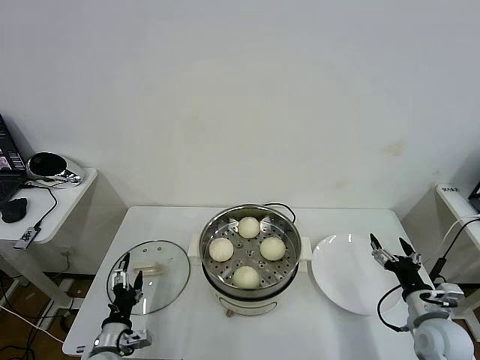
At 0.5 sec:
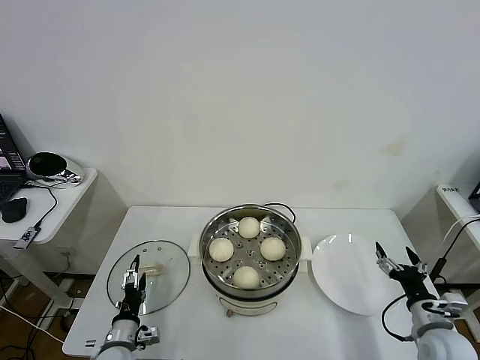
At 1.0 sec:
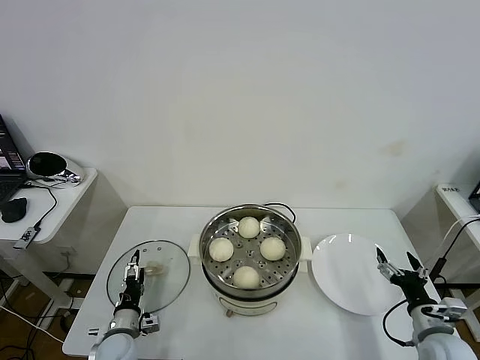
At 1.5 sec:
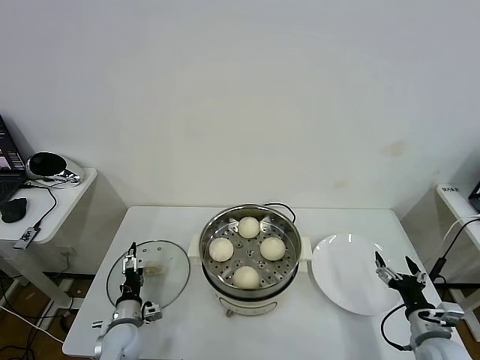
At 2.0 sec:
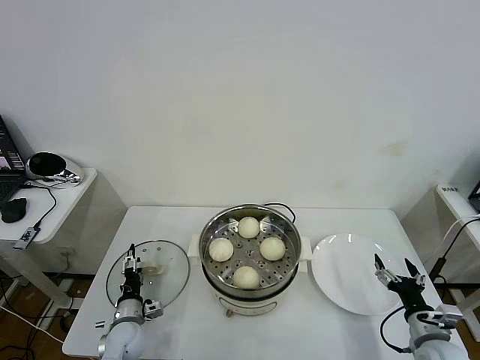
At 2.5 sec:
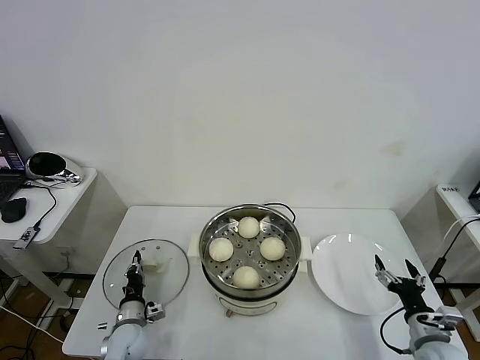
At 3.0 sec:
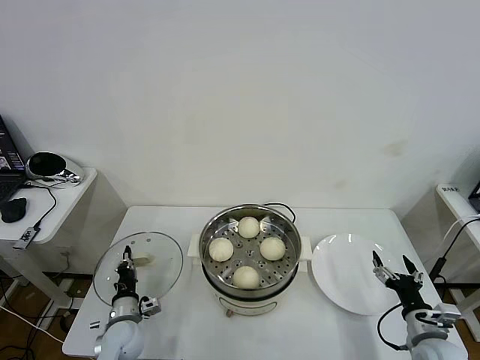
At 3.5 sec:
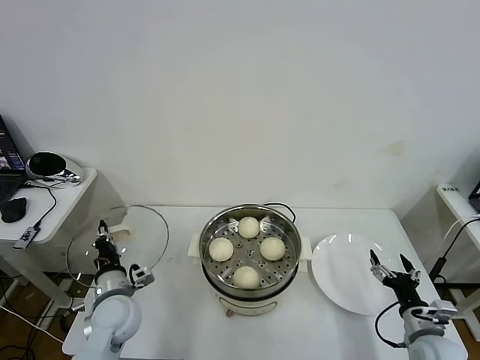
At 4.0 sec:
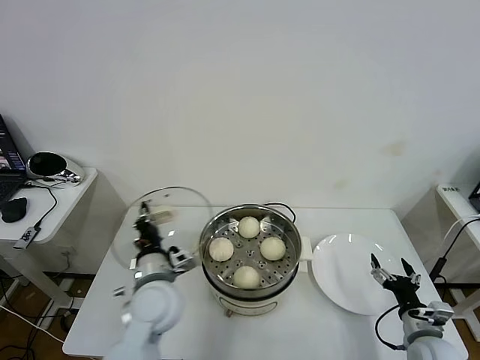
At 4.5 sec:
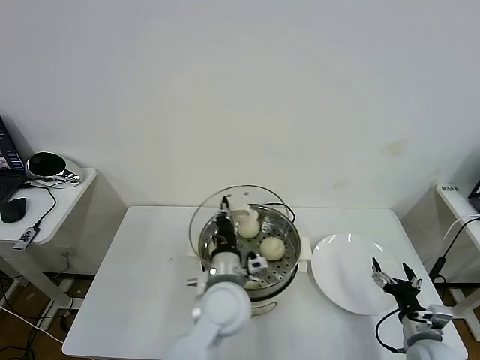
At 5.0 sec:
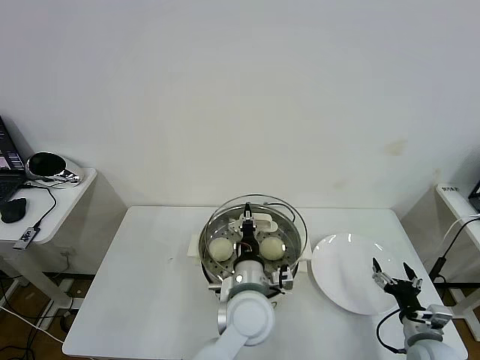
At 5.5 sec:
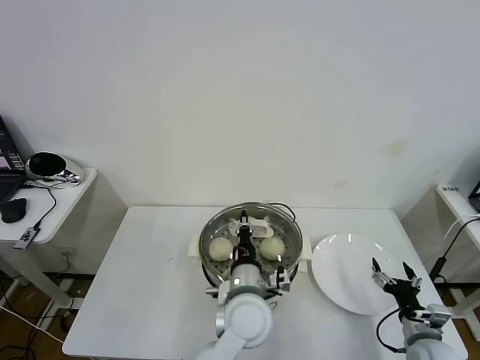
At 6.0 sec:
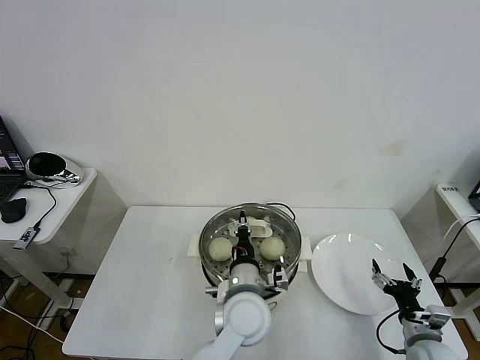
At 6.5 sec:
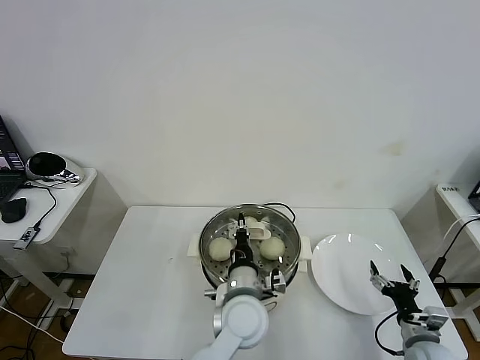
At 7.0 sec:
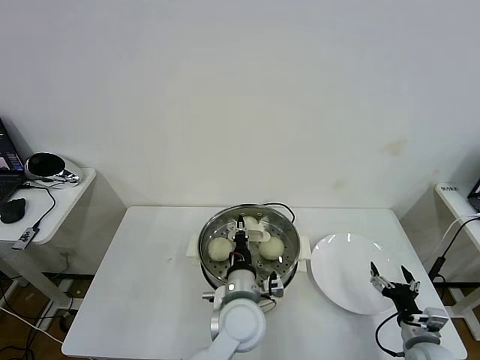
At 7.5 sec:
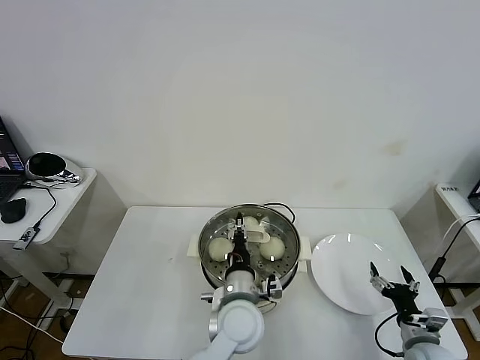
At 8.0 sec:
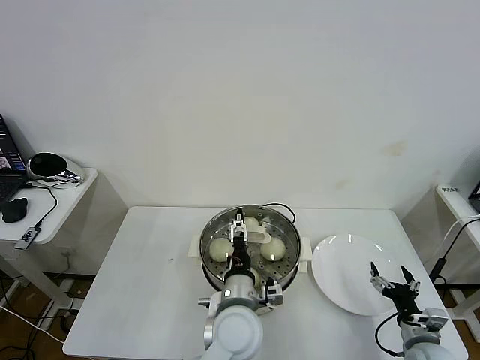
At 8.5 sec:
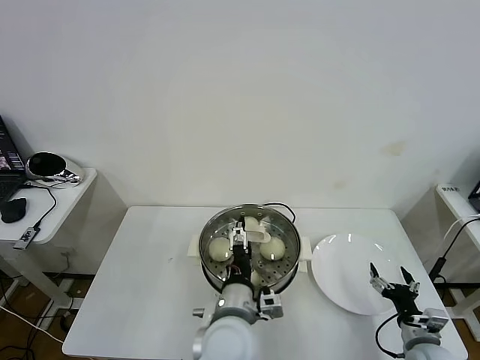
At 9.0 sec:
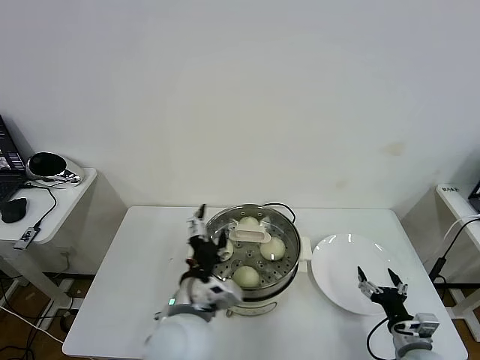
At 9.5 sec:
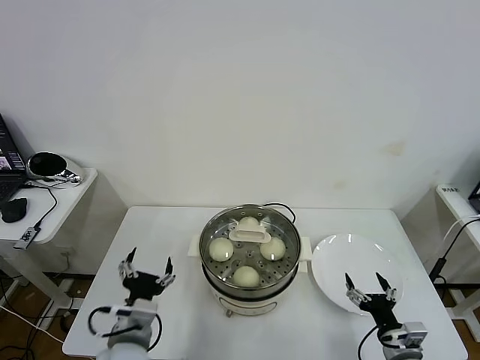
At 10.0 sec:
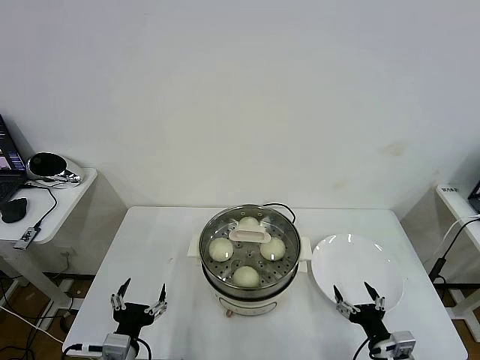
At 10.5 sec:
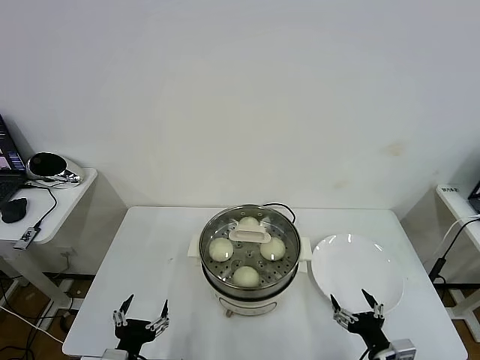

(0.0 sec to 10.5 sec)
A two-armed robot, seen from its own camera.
Task of the whole recording: take steamed baozi put them in steamer then cover it.
Step, 0.0 sec - 2.5 sec: Grasp the pot lid with left gripper.
Step, 3.0 sec - 8.0 sec: Place the pot lid on the steamer with left gripper.
0.0 sec - 2.0 sec: The left gripper shifts about 10 cm forward and downward.
2.0 sec - 4.0 sec: The left gripper goes about 25 cm upward and to the right, and closes up.
4.0 sec - 6.5 sec: The left gripper travels to the right by some 20 cm.
6.5 sec - 8.5 sec: The left gripper shifts approximately 5 cm backward, and opens up.
8.5 sec - 10.5 sec: The left gripper shifts some 25 cm to the left and backward, while the right gripper is displaced to the left and backward by approximately 10 cm.

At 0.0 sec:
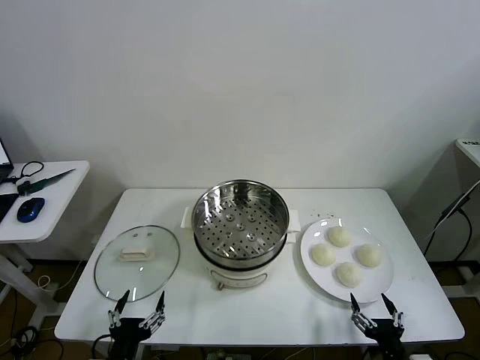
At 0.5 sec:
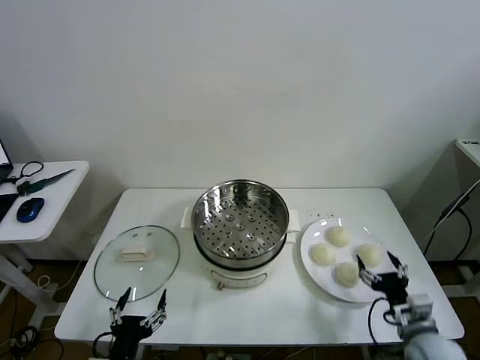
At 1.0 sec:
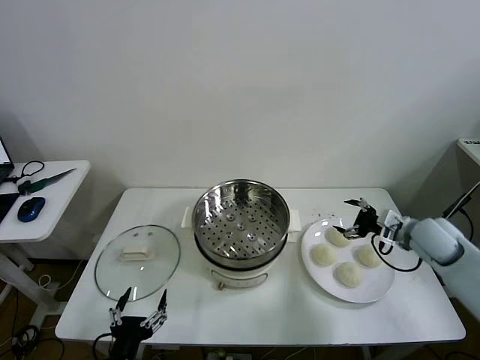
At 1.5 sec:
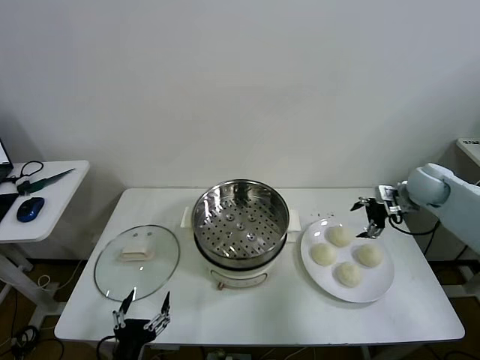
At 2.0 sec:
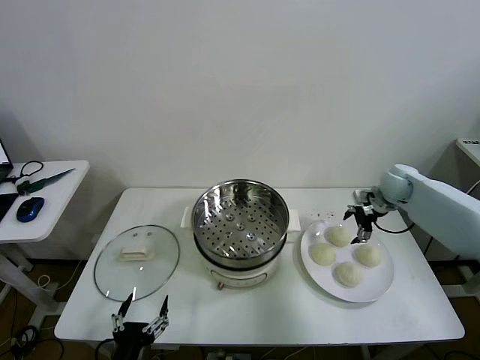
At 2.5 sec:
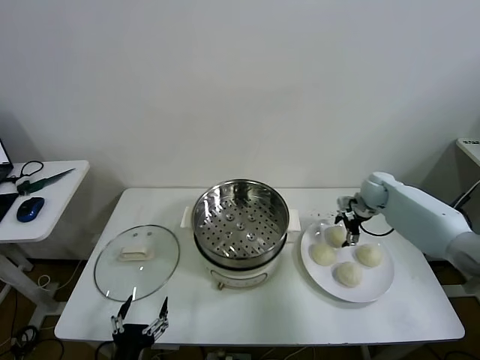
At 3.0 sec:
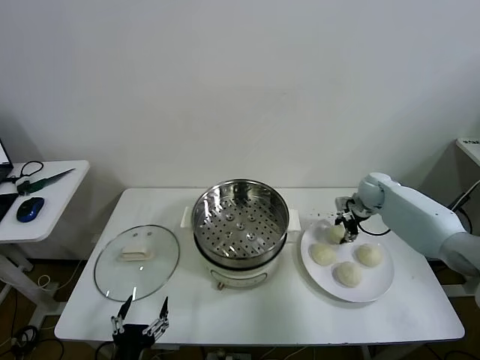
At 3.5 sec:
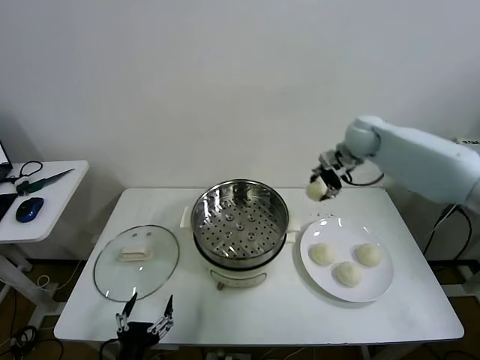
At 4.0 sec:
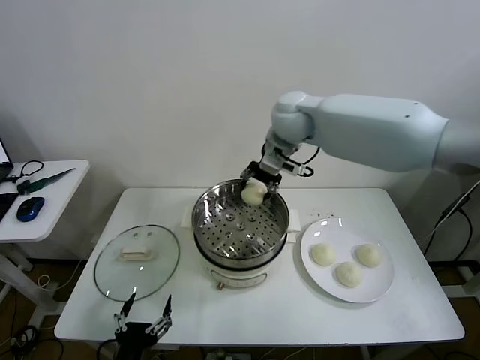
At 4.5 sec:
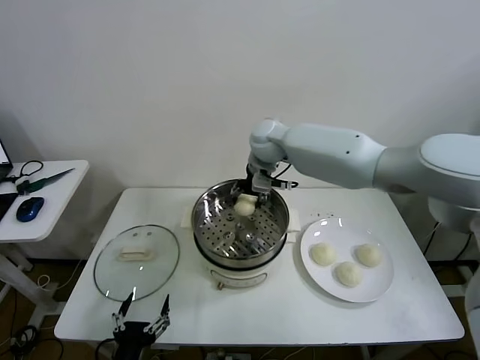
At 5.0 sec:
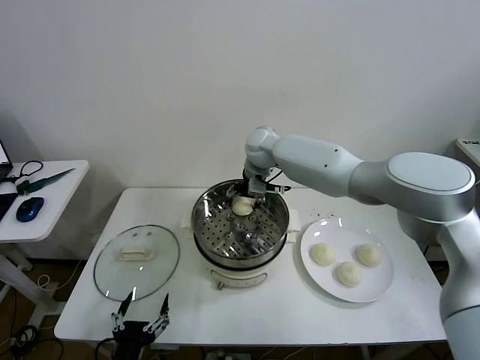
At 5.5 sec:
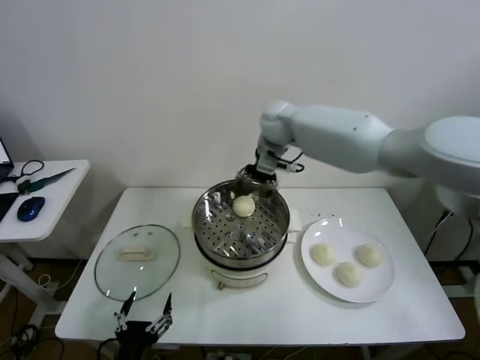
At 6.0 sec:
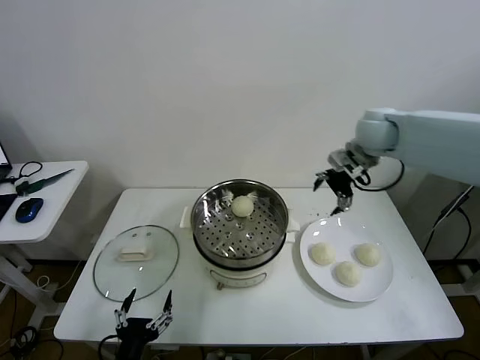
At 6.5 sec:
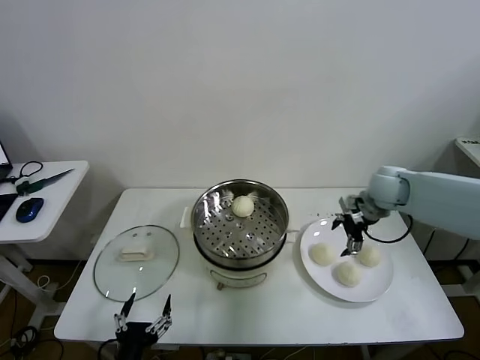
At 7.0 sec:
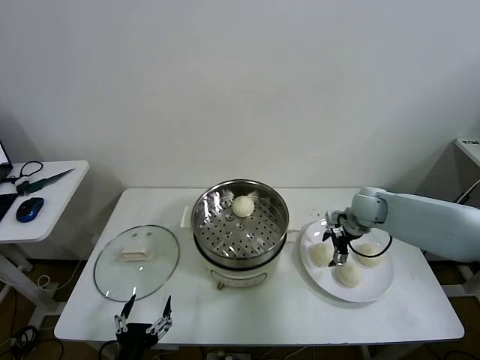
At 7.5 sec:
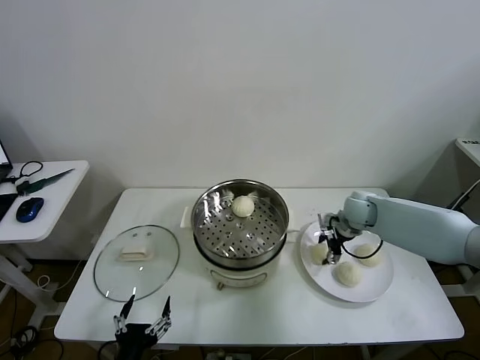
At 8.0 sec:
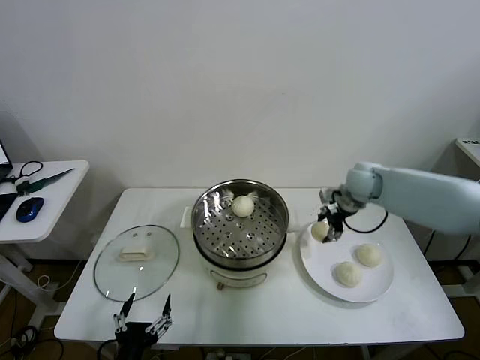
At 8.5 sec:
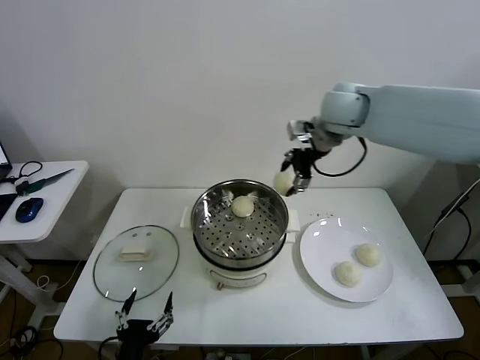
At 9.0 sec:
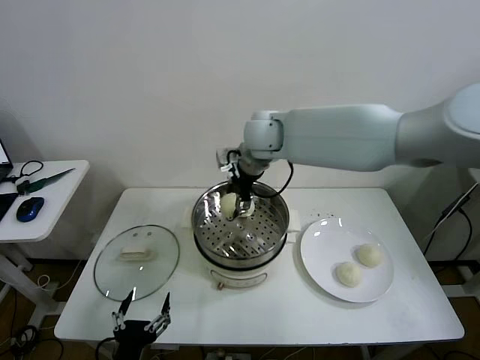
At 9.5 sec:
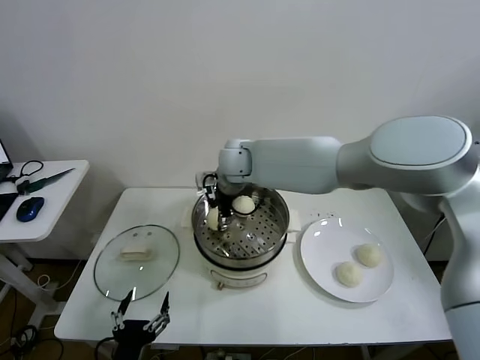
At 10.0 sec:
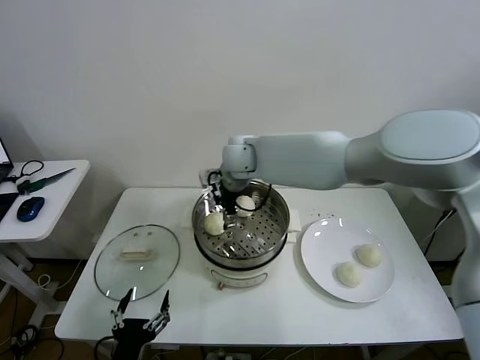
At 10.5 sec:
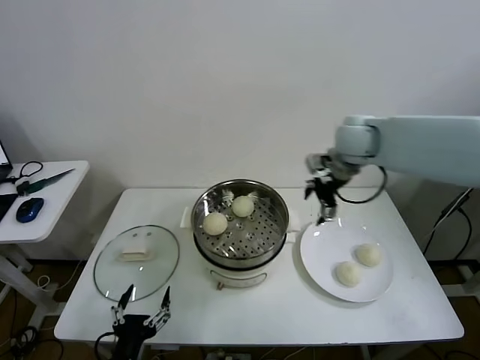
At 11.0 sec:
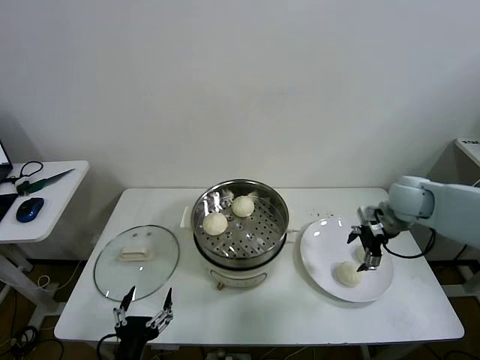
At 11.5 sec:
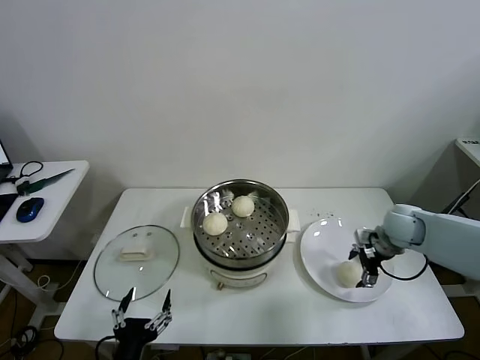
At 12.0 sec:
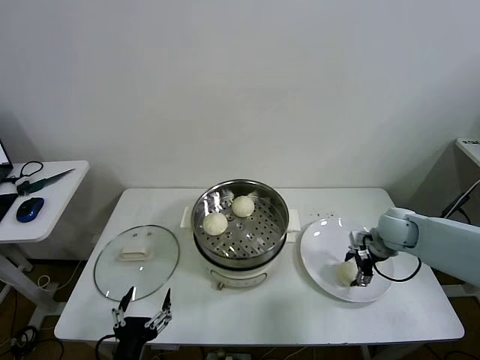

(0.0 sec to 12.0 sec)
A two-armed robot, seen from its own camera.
Task of the whole recording: take steamed baozi put them in steamer then cover it.
Step, 0.0 sec - 2.5 sec: Grasp the baozi in the plate with right gripper.
Step, 3.0 sec - 5.0 sec: Place the baozi on the steamer with right gripper.
Step, 5.5 sec - 7.5 sec: Grasp the baozi in the plate with right gripper.
Step, 8.0 sec - 9.5 sec: Place the baozi on the steamer with right gripper.
2.0 sec - 4.0 sec: The right gripper travels to the left and upward by approximately 35 cm, and closes up.
4.0 sec - 6.0 sec: The right gripper moves to the right, some 20 cm, and opens.
6.0 sec - 8.0 sec: The right gripper moves downward, some 10 cm, and closes up.
8.0 sec - 10.0 sec: The right gripper goes approximately 30 cm to the left, and opens its fingers.
10.0 sec - 12.0 sec: The right gripper travels to the right and downward by approximately 40 cm, and closes its fingers.

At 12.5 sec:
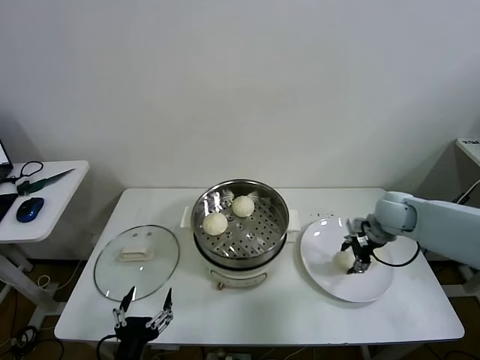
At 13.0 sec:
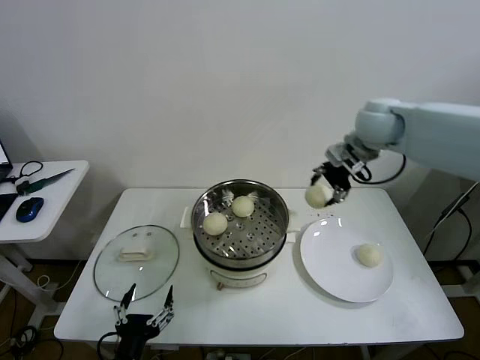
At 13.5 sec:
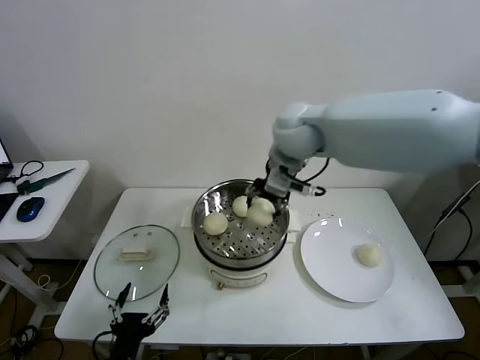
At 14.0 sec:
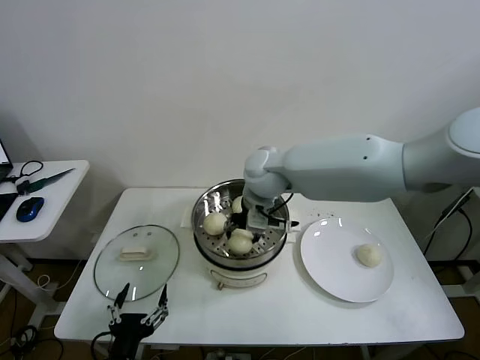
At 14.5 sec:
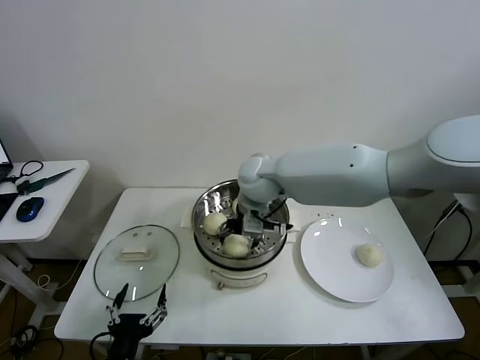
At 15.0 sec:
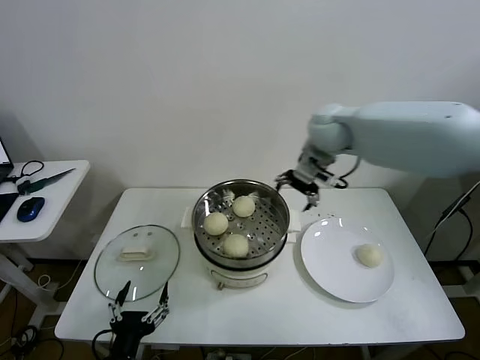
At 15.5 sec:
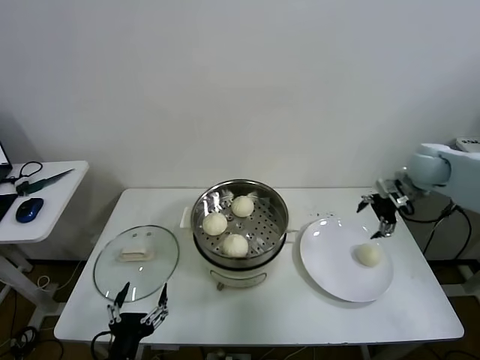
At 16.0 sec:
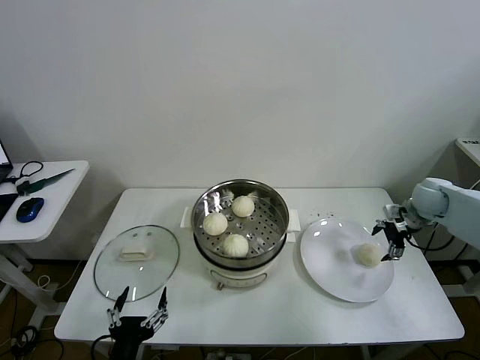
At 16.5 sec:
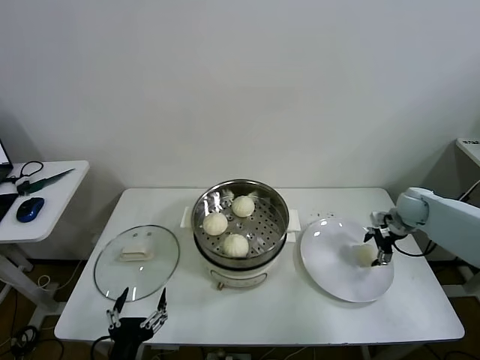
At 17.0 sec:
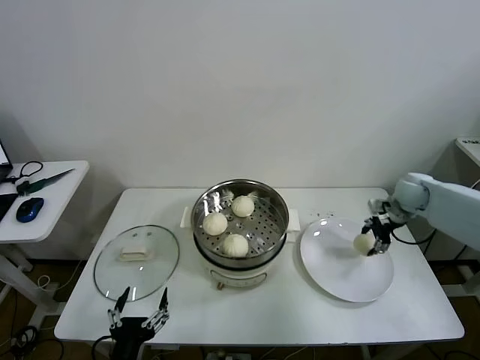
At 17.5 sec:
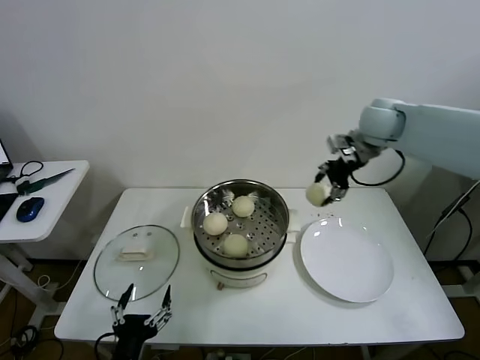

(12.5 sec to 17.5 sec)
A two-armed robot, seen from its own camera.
Task of the whole recording: take steamed baozi put them in steamer then cover it.
Step, 12.5 sec - 14.5 sec: Place the baozi on the steamer with right gripper.
Step, 15.0 sec - 16.5 sec: Grasp the baozi in the plate with right gripper.
12.5 sec - 15.0 sec: The right gripper moves upward and to the left, about 25 cm, and opens.
15.0 sec - 17.5 sec: The right gripper moves roughly 25 cm to the right and comes back, and closes its fingers.
